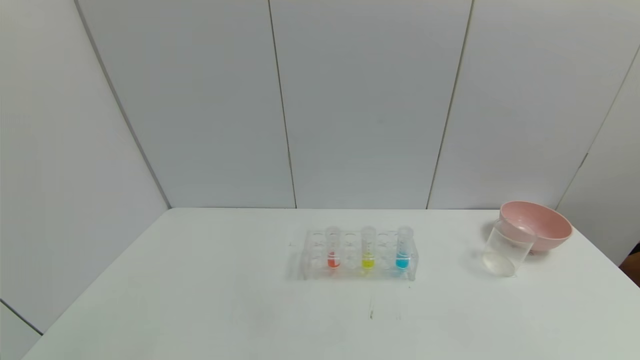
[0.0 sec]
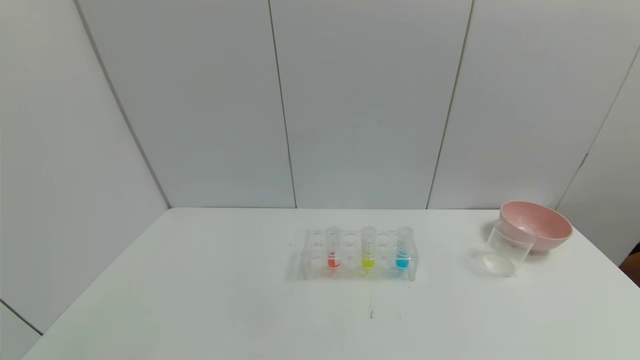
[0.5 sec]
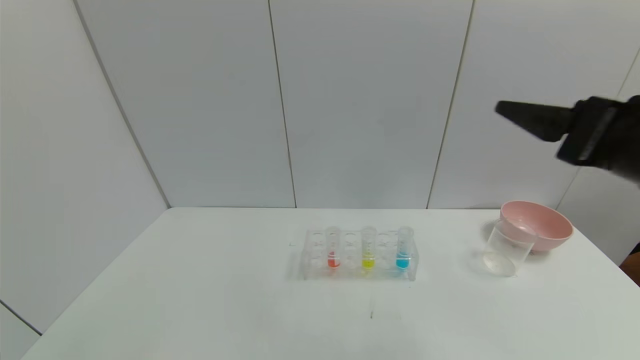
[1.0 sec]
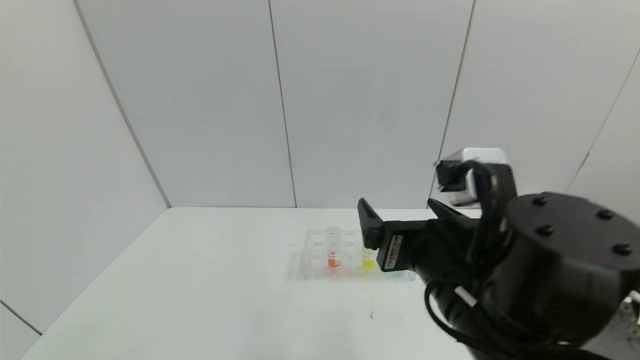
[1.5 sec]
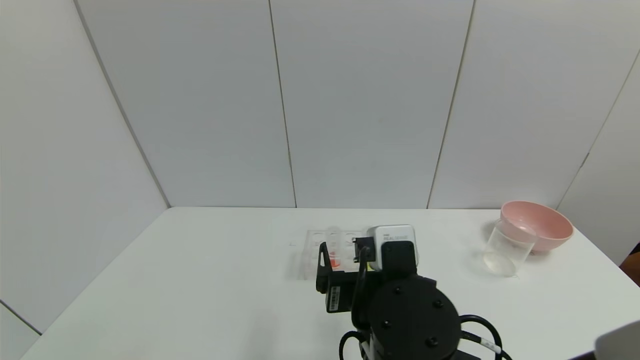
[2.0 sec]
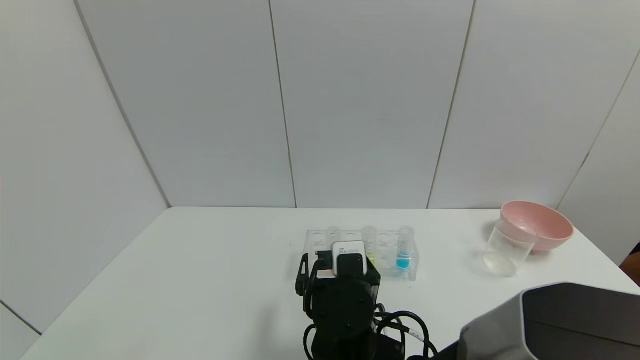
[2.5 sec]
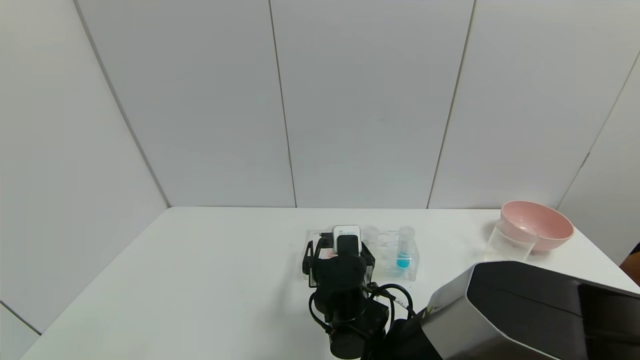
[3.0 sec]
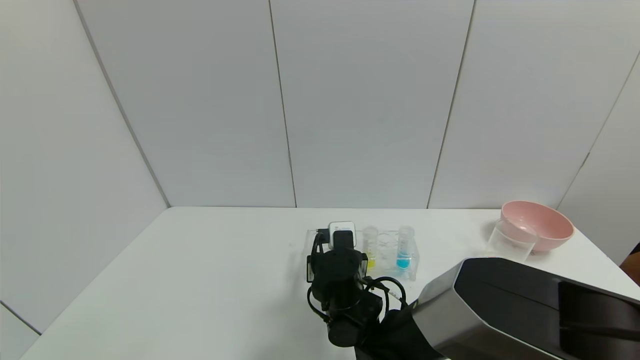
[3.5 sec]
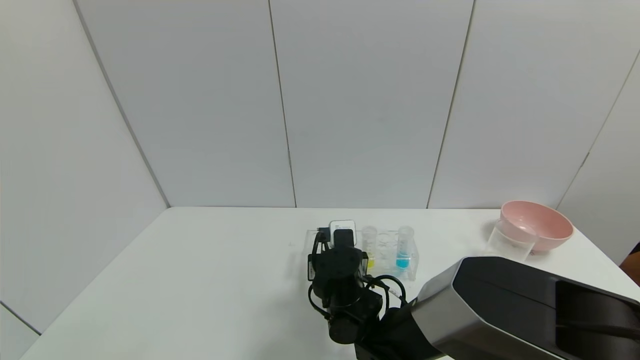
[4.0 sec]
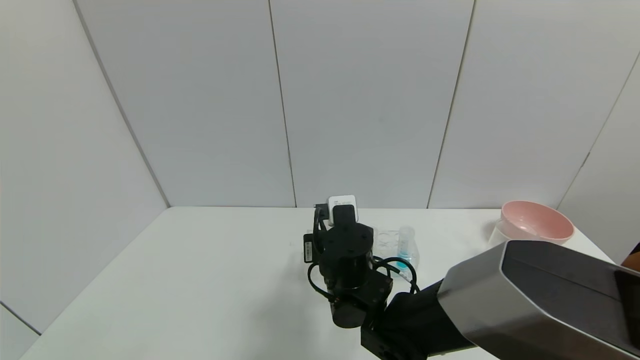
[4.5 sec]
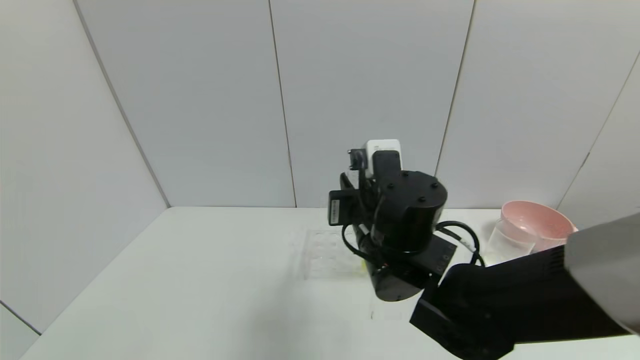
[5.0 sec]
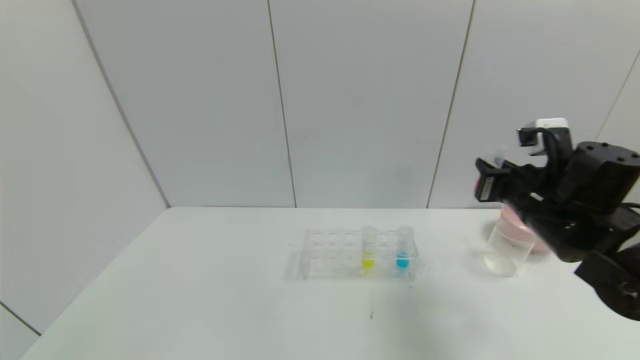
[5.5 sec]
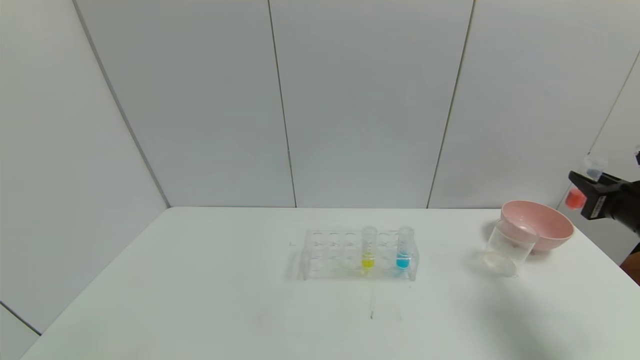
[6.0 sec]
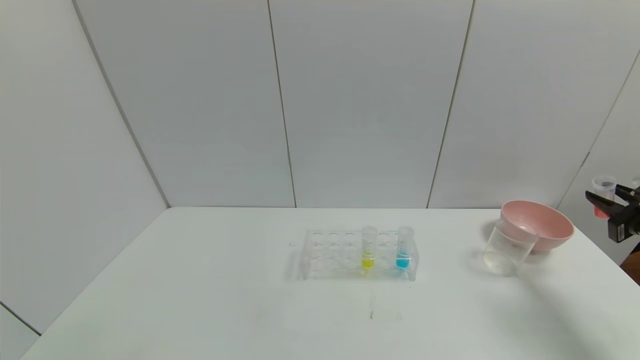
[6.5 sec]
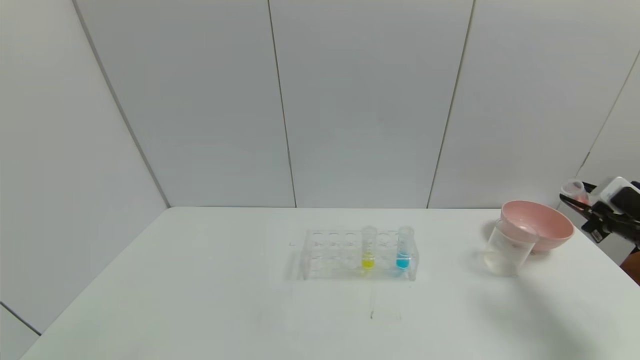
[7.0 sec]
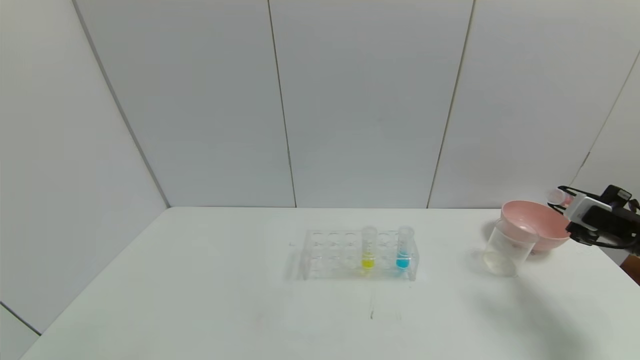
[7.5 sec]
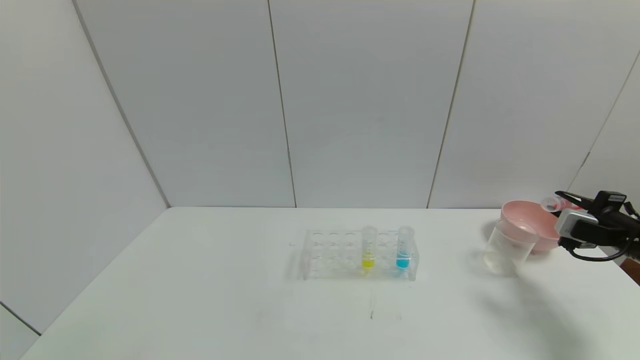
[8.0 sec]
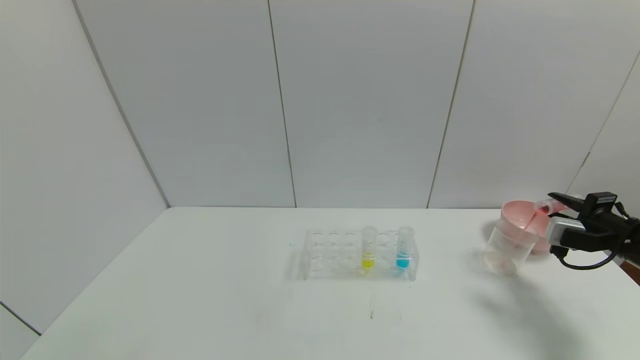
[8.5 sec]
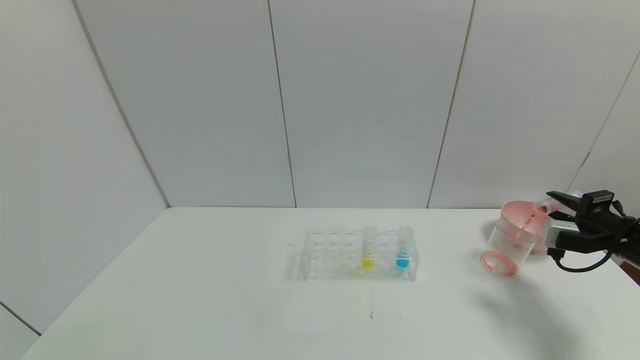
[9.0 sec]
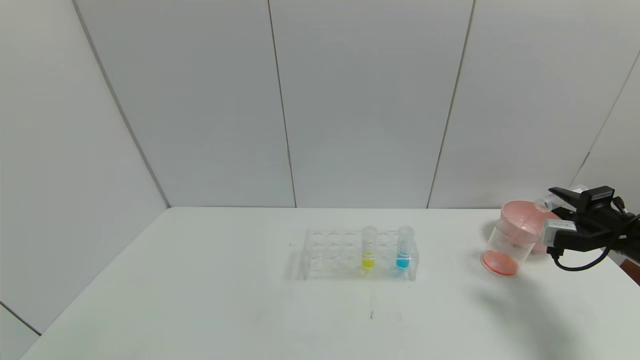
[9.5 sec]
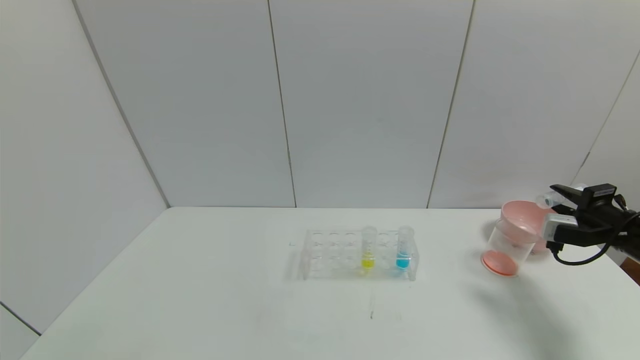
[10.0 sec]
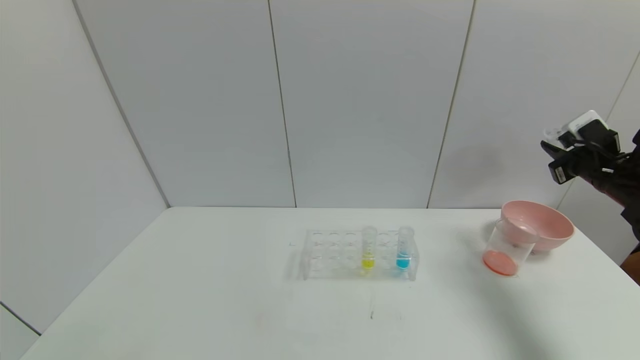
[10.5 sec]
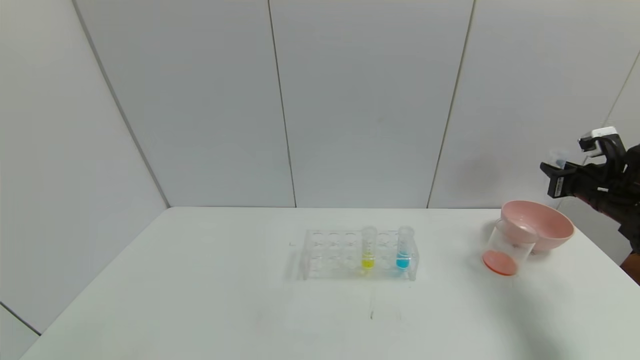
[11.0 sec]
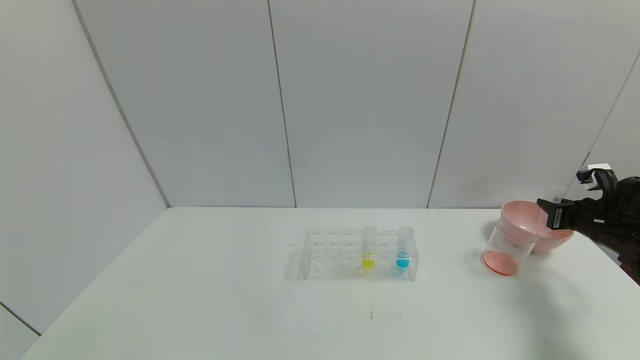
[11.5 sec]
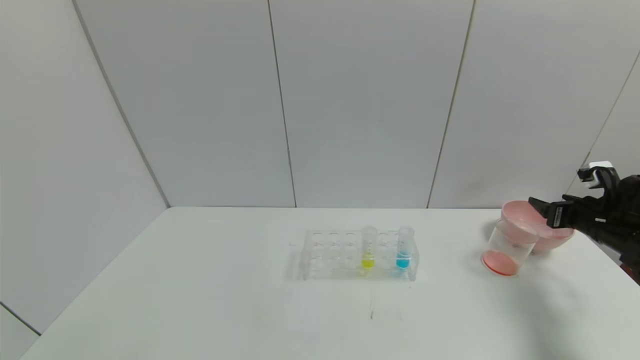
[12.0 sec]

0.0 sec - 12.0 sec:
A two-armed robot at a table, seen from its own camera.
Task of the whole recording: pick up the test tube with yellow pigment and the test tube with red pigment by grippers and pour them into the beaker.
Step, 0.0 sec - 5.0 sec: Pick up the test tube containing the red reagent with right gripper.
Step, 5.5 sec - 10.5 sec: Pour the red reagent into the graduated cylinder with right gripper.
0.0 sec - 2.0 sec: The right gripper heads to the left and forward, covering some 40 cm.
2.0 sec - 4.0 sec: The right gripper shifts about 15 cm forward and downward, and closes up.
4.0 sec - 6.0 sec: The right gripper heads to the right, covering about 40 cm.
6.0 sec - 8.0 sec: The right gripper moves downward, approximately 5 cm.
8.0 sec - 10.0 sec: The grippers make only small movements.
10.0 sec - 12.0 sec: The right gripper travels upward and back again, about 5 cm each way, and opens its fingers.

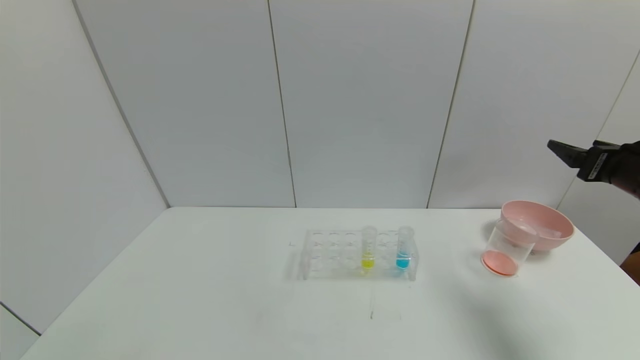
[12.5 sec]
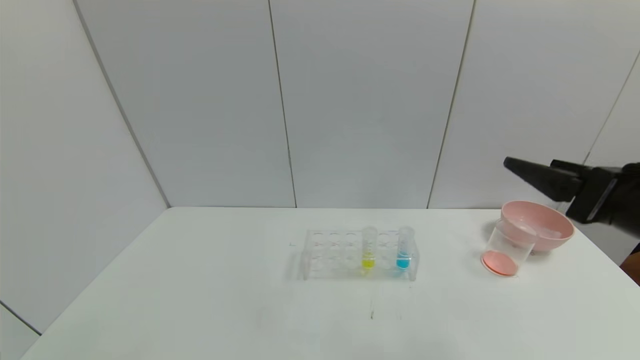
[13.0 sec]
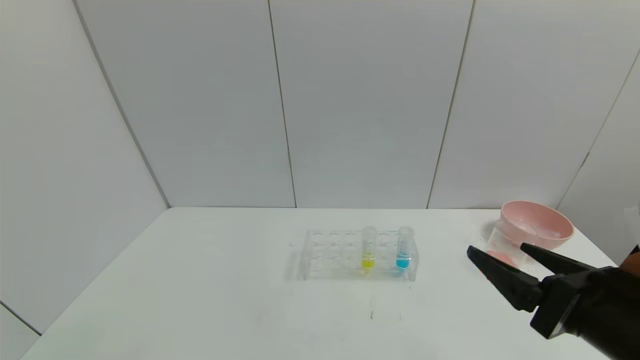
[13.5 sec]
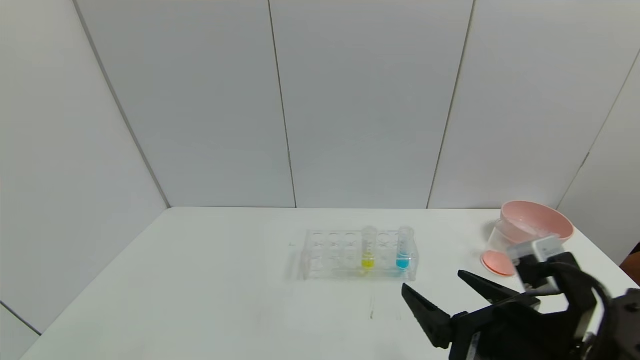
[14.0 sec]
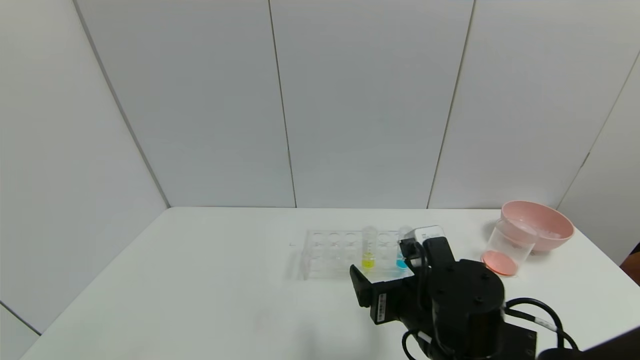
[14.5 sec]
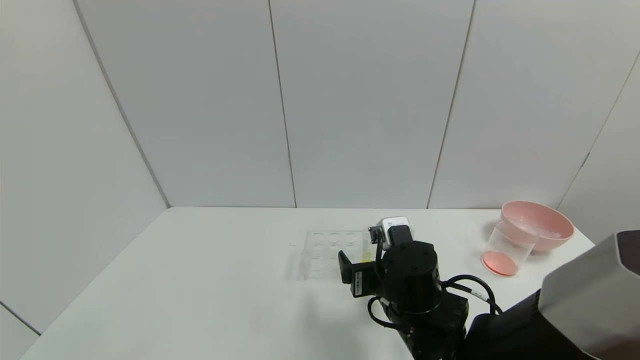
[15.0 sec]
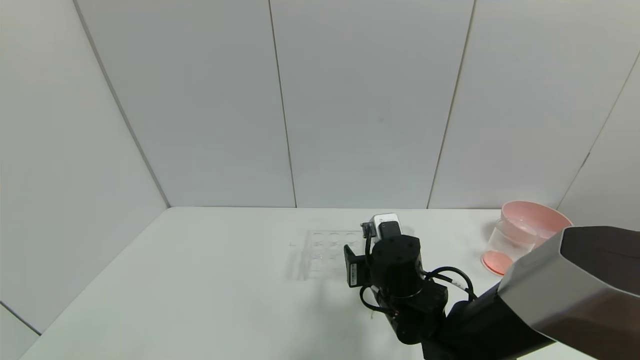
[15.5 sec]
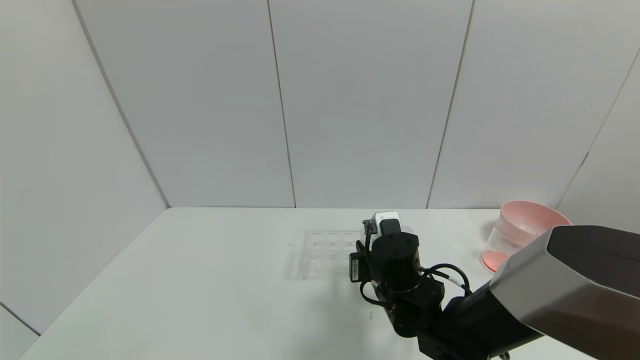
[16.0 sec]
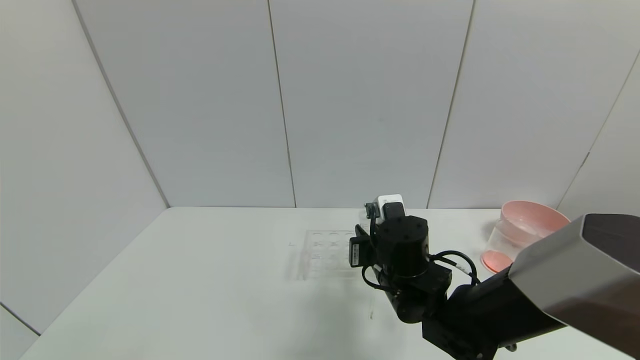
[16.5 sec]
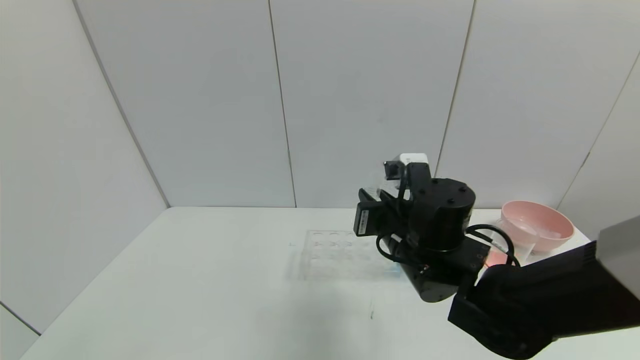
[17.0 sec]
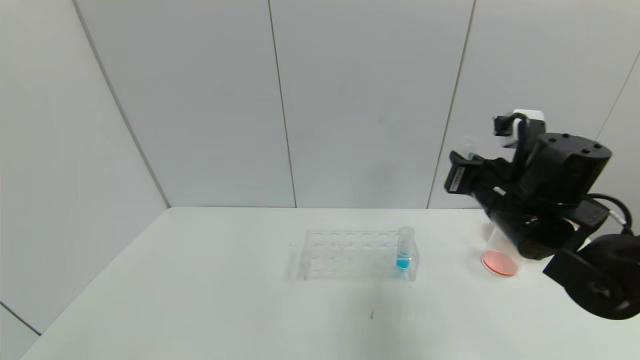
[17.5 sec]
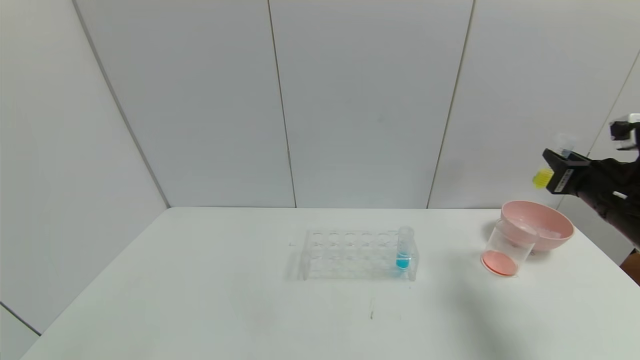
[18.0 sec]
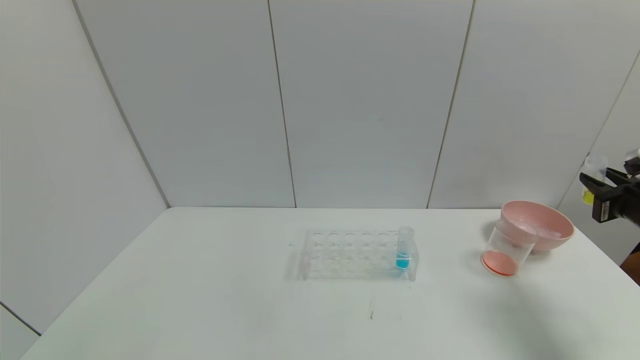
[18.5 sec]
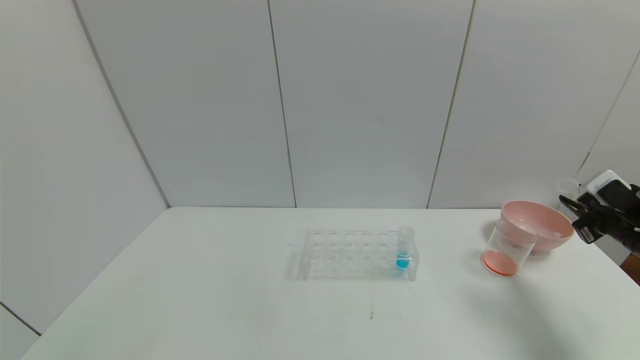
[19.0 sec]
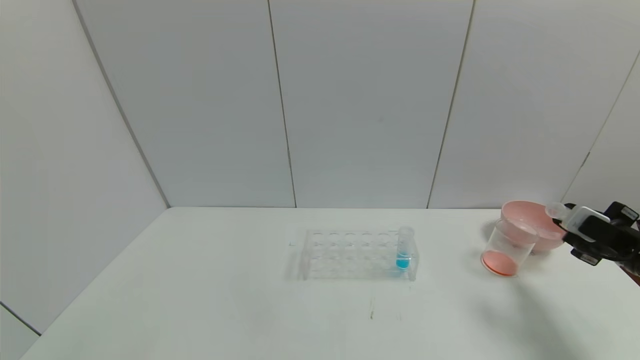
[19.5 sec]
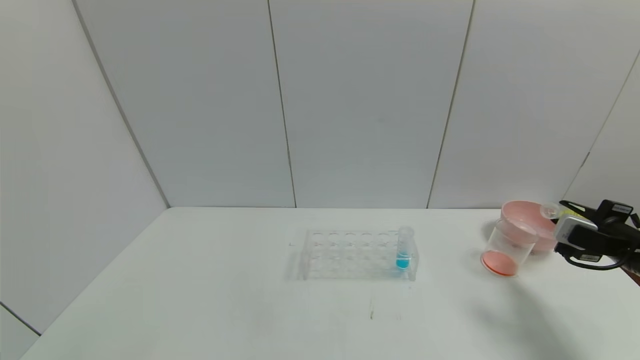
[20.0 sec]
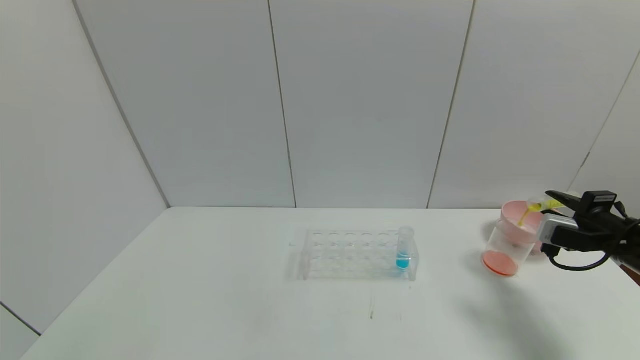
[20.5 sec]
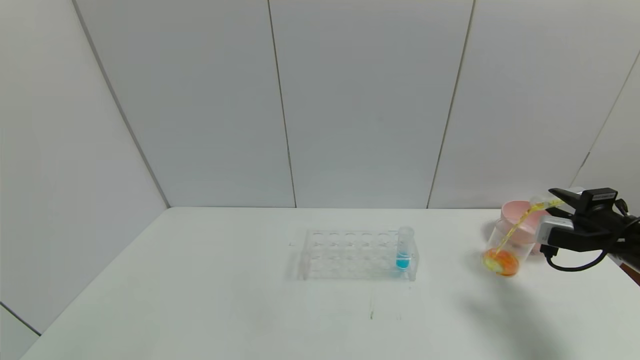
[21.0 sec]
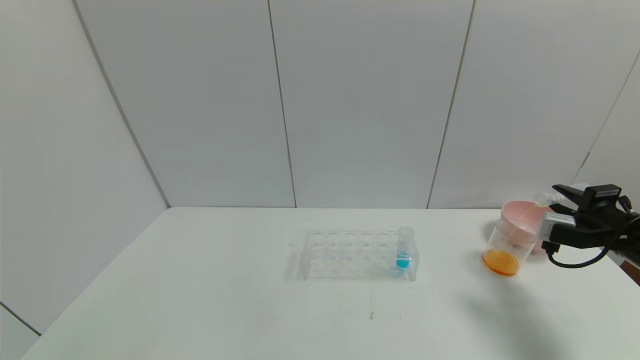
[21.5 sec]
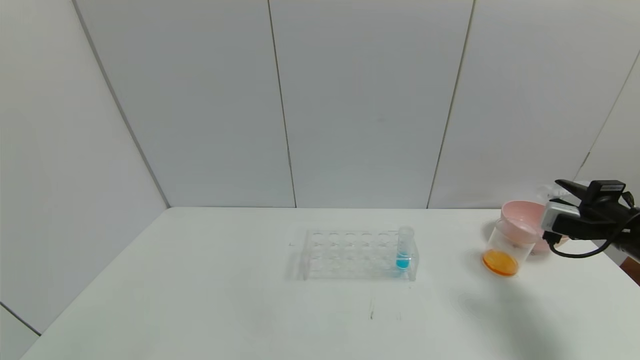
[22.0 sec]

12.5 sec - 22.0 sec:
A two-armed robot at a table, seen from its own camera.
Task of the whole recording: pick up the test tube with yellow pigment and the test tube with red pigment by grippers and pour them into the beaker.
Step, 13.0 sec - 17.0 sec: Pick up the test tube containing the yellow reagent with right gripper.
12.5 sec - 14.5 sec: The right gripper goes some 30 cm to the left and downward.
14.5 sec - 16.5 sec: The right gripper shifts some 10 cm forward, and closes.
16.5 sec - 18.0 sec: The right gripper heads to the right, covering some 30 cm.
18.0 sec - 20.0 sec: The right gripper shifts some 10 cm downward and to the right.
20.0 sec - 22.0 sec: There are only small adjustments of the grippers.
